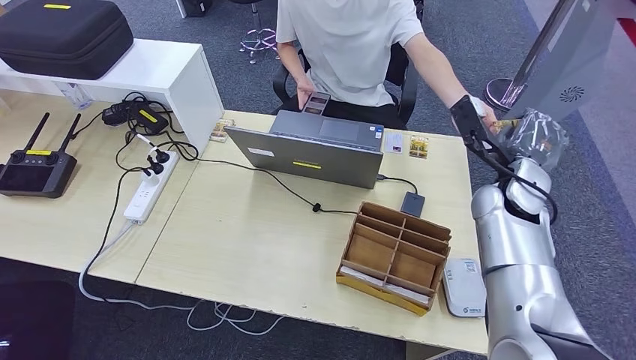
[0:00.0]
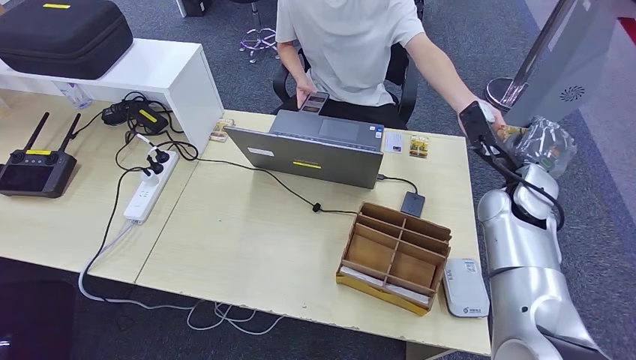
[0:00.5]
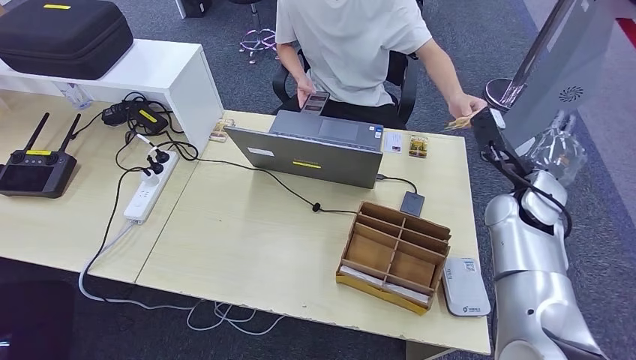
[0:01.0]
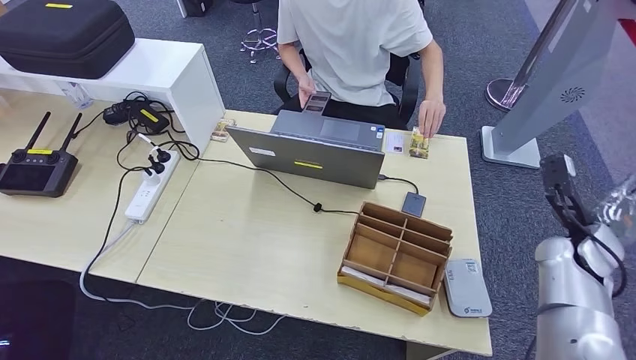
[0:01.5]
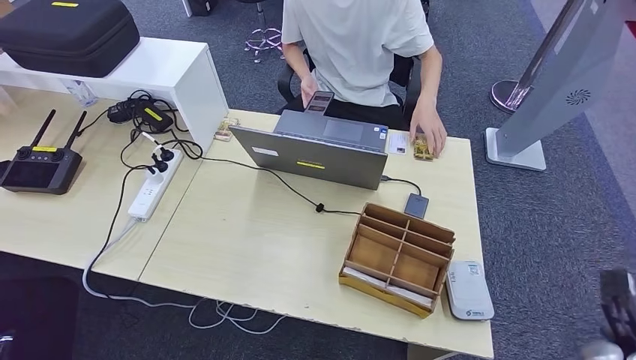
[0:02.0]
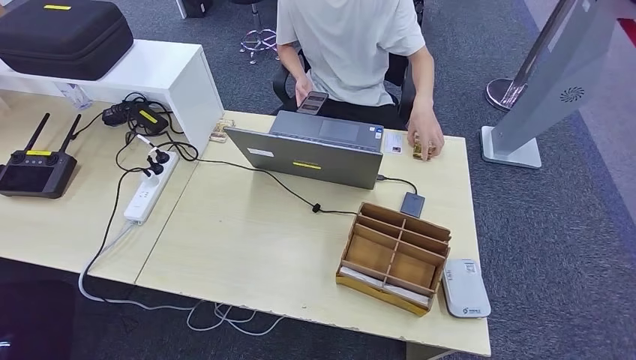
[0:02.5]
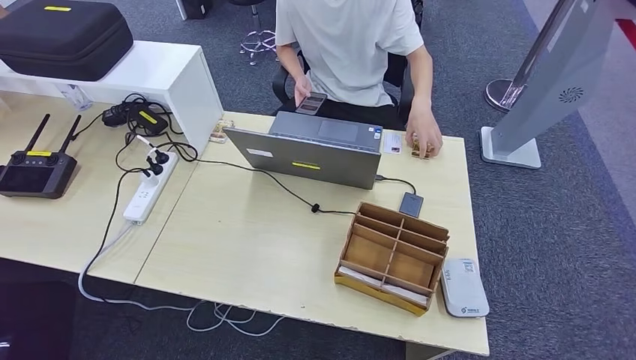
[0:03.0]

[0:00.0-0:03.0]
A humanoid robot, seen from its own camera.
Step, 0:00.0 to 0:03.0: Hand the room key to the person.
0:00.0 to 0:01.5: The right hand heads to the right and downward, covering approximately 15 cm.
0:01.5 to 0:03.0: The right hand moves backward and downward, some 50 cm.
